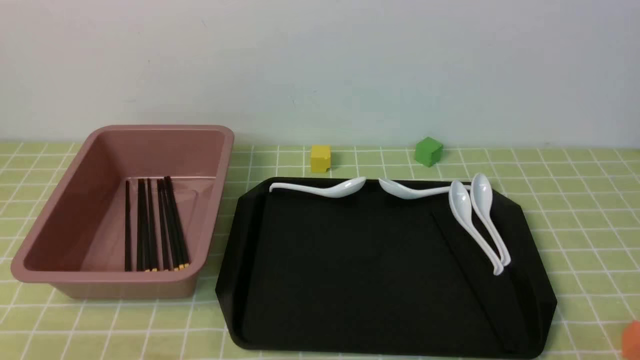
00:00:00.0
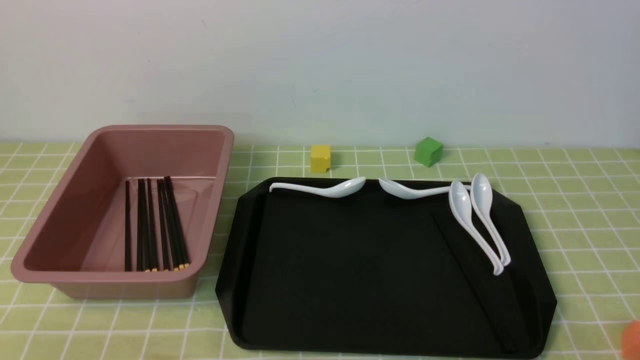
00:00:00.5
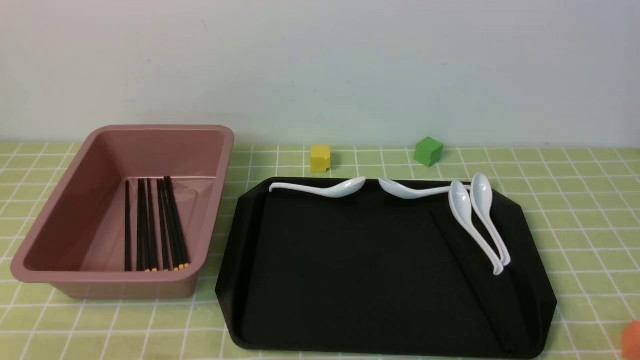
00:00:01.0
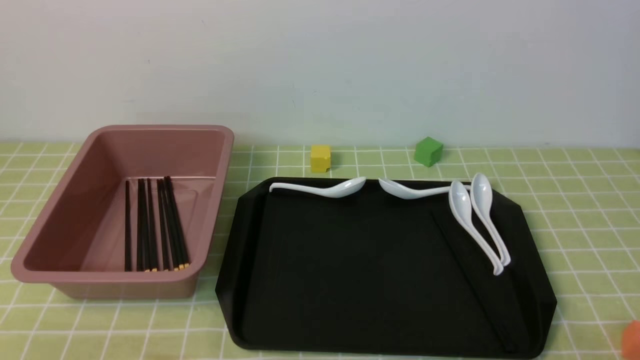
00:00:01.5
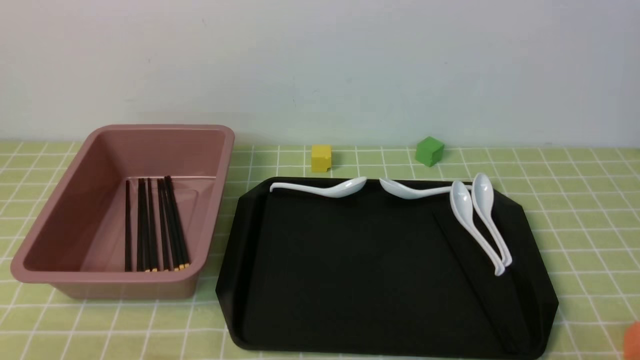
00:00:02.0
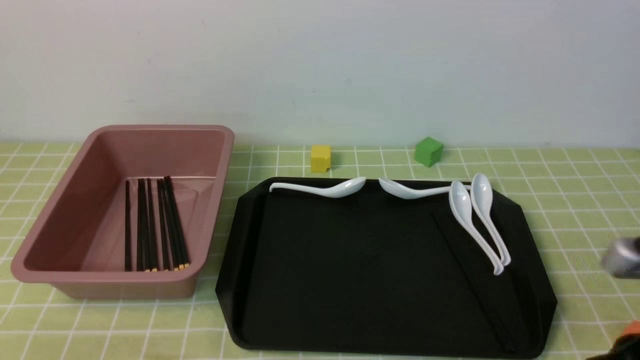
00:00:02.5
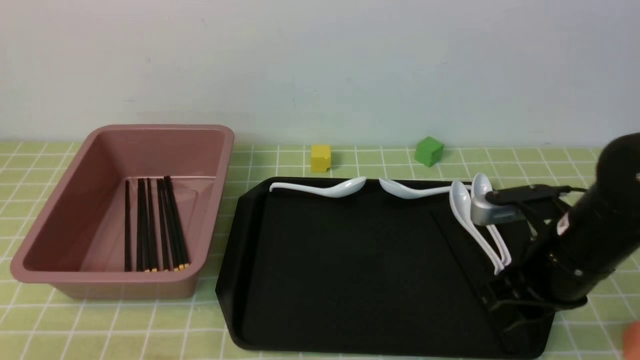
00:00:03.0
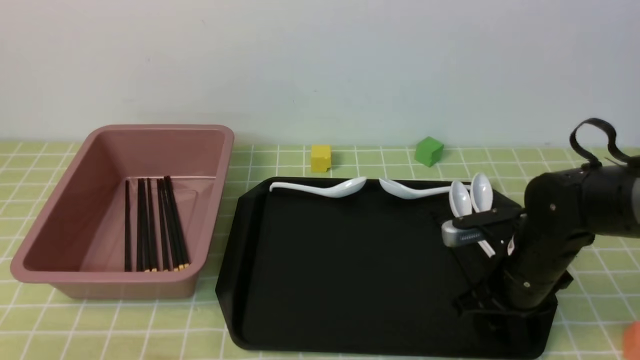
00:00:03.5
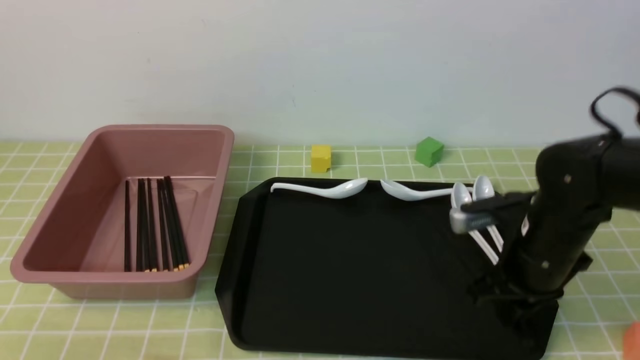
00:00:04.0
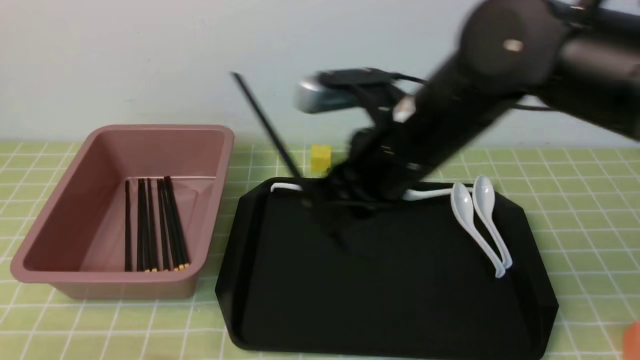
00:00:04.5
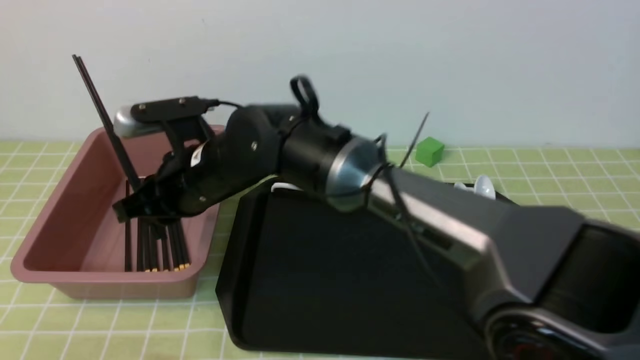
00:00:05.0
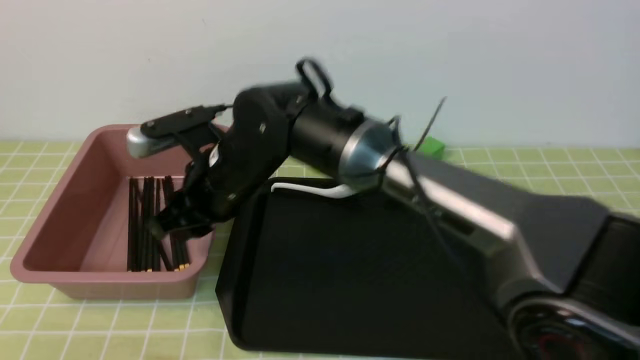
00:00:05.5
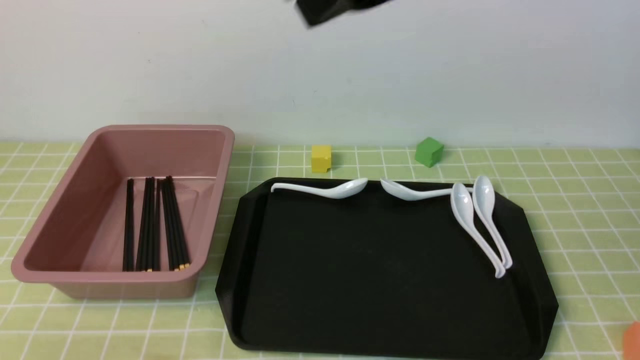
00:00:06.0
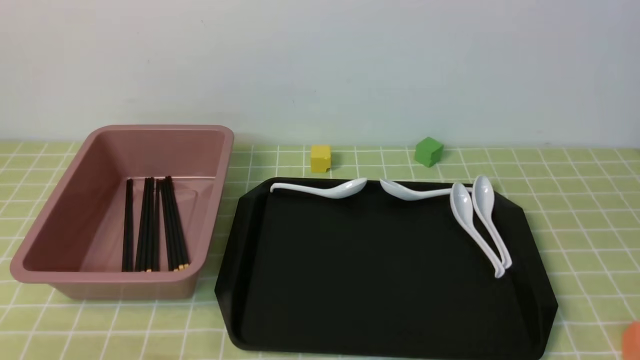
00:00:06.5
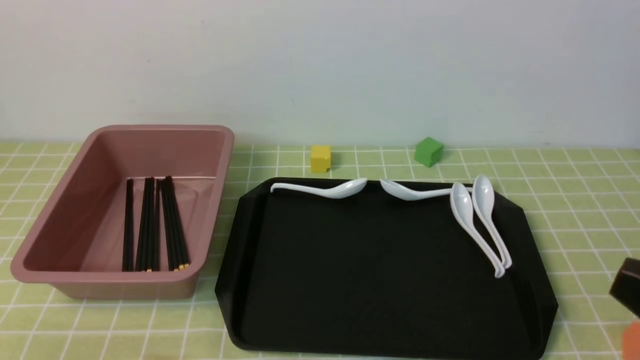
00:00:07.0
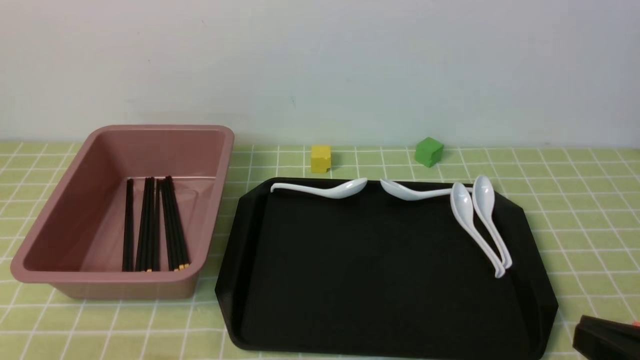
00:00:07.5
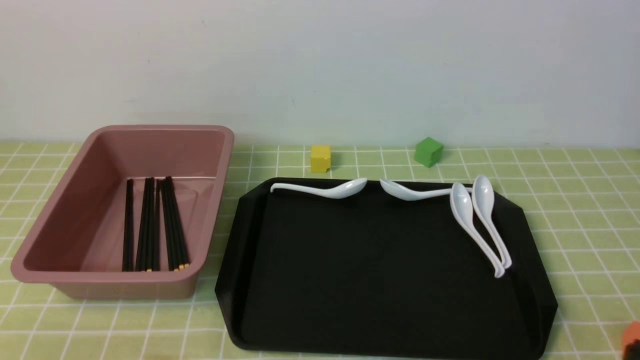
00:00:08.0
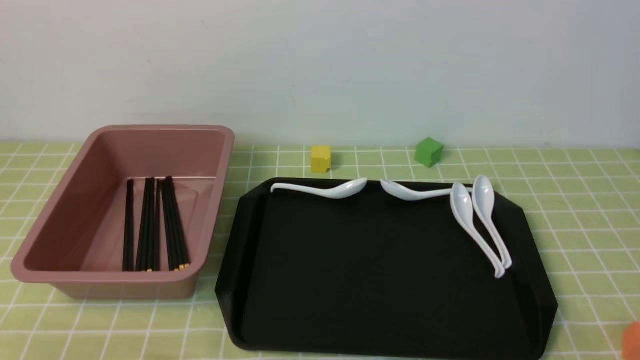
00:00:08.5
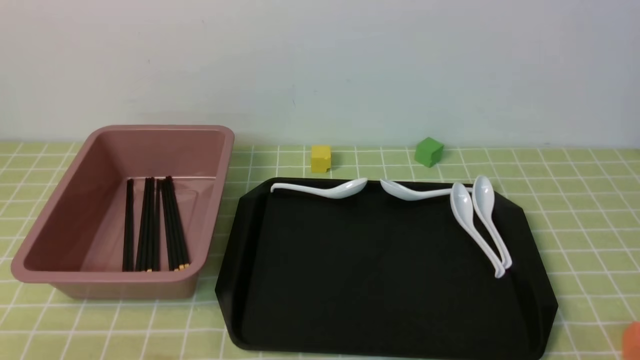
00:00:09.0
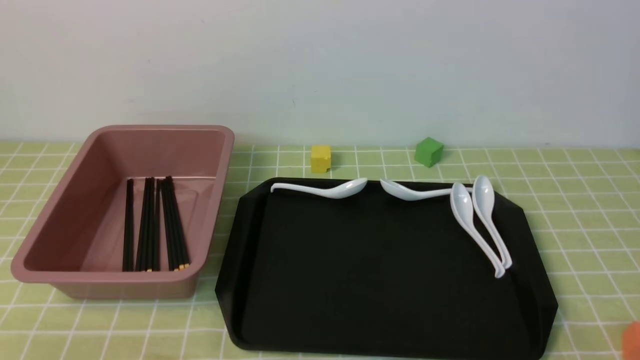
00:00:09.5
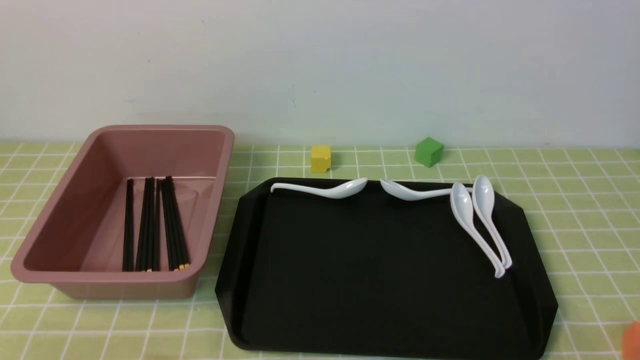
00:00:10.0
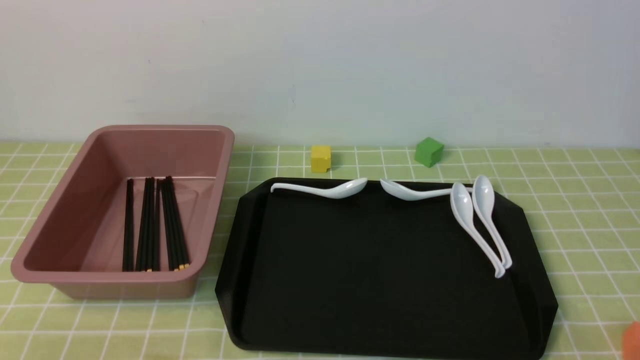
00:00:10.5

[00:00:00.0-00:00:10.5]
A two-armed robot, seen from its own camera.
Step, 00:00:00.0 to 00:00:04.0: use the right arm to grab a pair of chopsticks.
Step, 00:00:04.5 to 00:00:05.5: use the right arm to put the chopsticks into the lunch box.
00:00:02.0 to 00:00:04.0: The right gripper travels forward by roughly 25 cm.
00:00:04.0 to 00:00:06.5: The right gripper heads upward and backward, covering approximately 35 cm, and goes to the left and returns, about 30 cm each way.
00:00:08.5 to 00:00:10.5: Neither gripper changes place.
